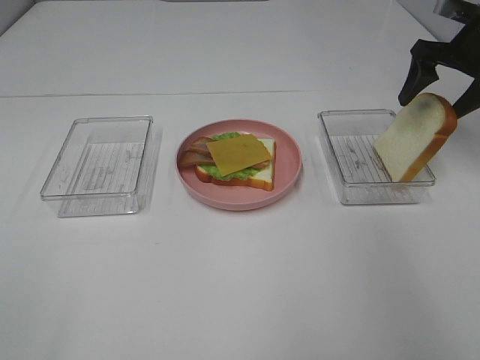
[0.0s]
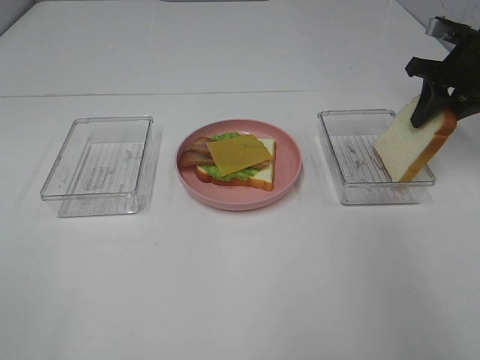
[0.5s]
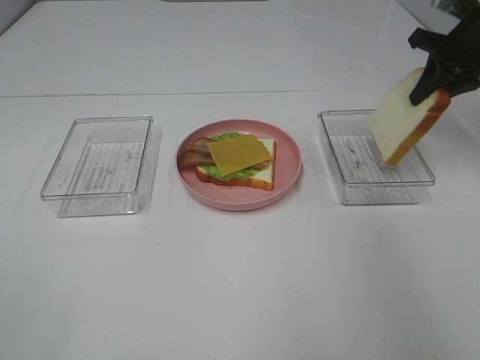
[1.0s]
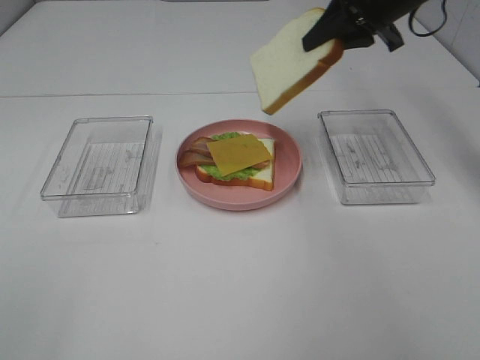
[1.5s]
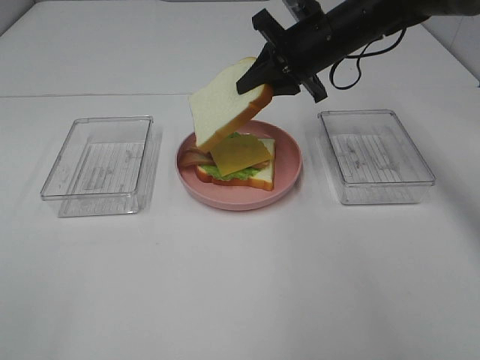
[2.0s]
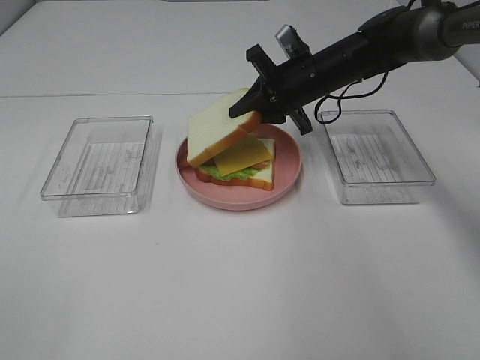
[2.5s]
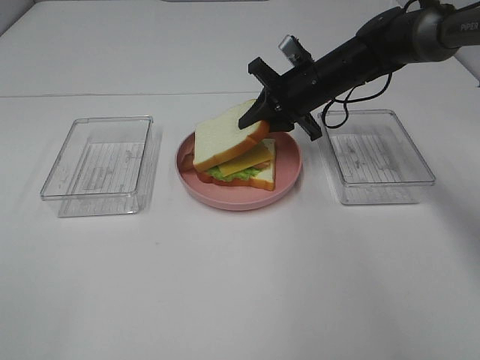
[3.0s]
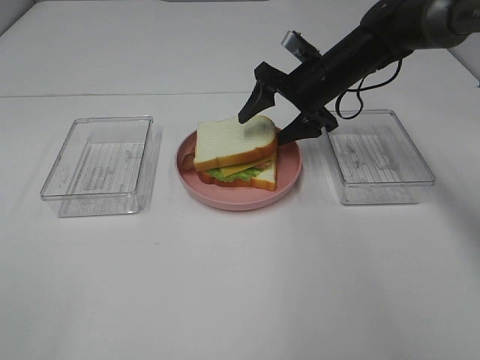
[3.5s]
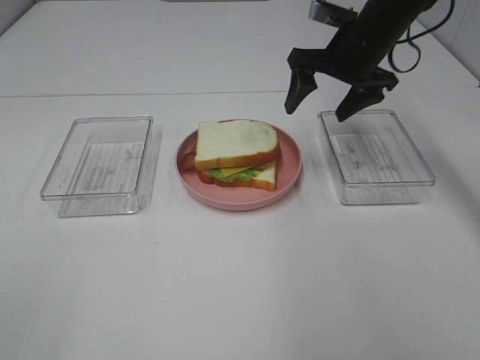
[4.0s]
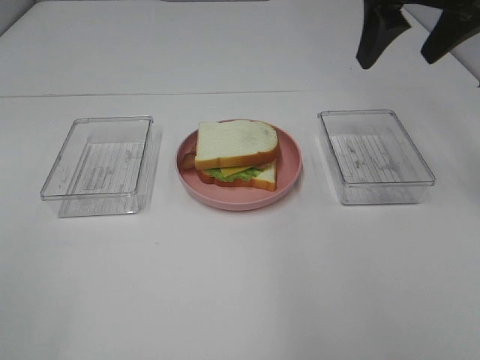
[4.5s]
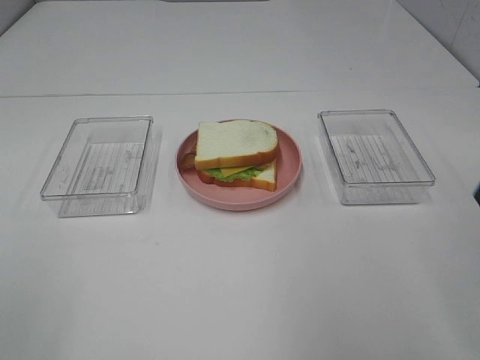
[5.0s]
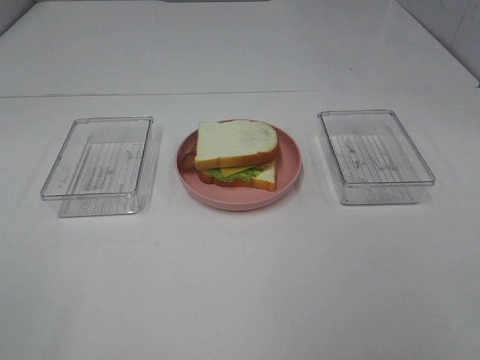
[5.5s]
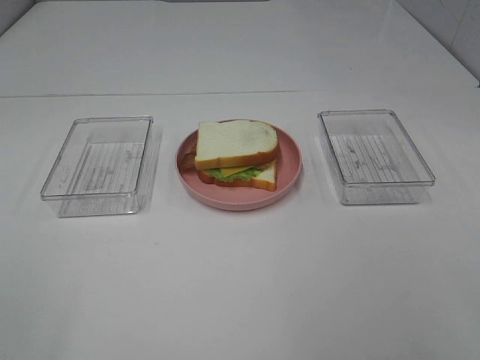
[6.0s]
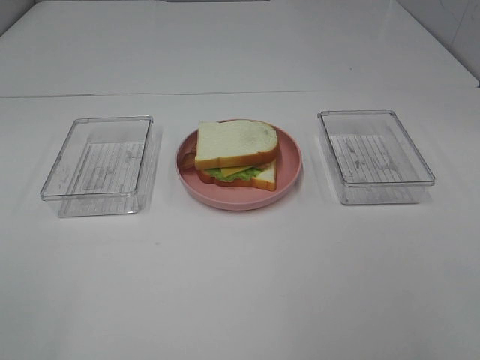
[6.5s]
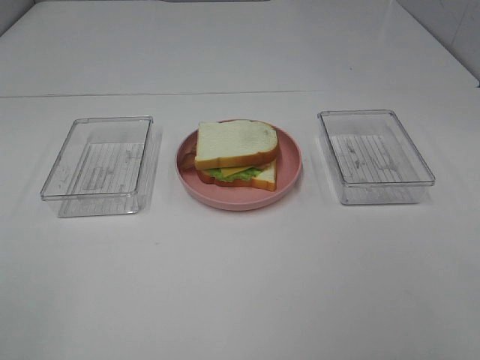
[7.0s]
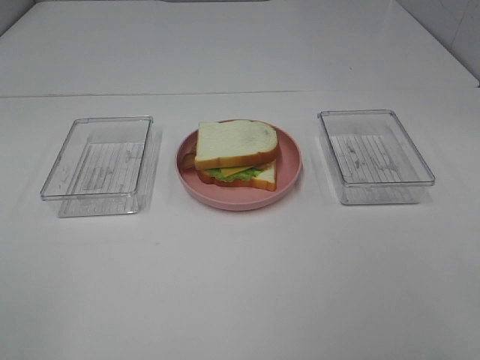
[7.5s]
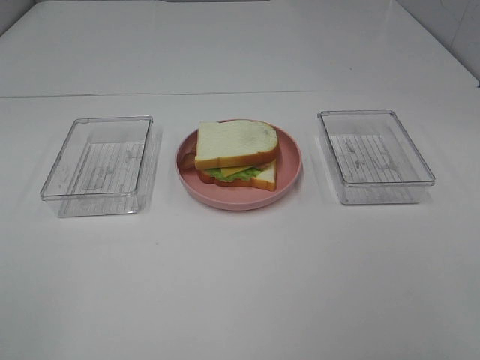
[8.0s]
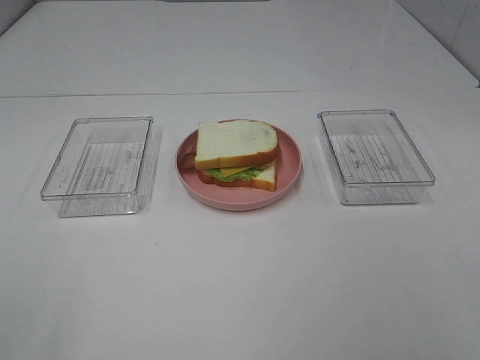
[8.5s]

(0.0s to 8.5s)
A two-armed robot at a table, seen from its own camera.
Task of the whole recording: Make sandwiches.
Step, 1.0s - 3.5s: Right hand:place the bread slice on the cheese slice.
0.0s - 2.0s: The right gripper travels to the left by some 20 cm, and closes its fingers.
2.0s - 4.0s: The right gripper travels downward and back again, approximately 5 cm each way, and opens up.
4.0s - 6.5s: The right gripper heads backward, covering about 40 cm.

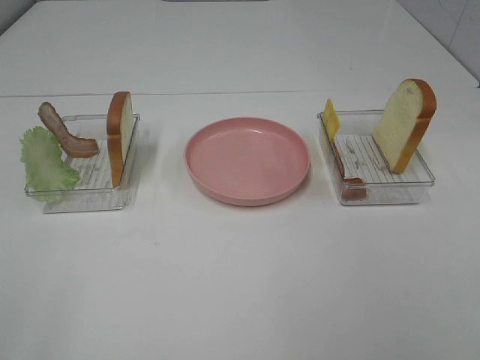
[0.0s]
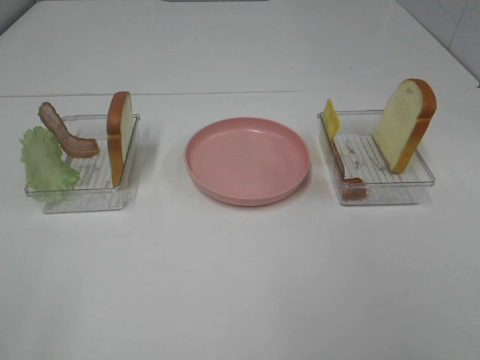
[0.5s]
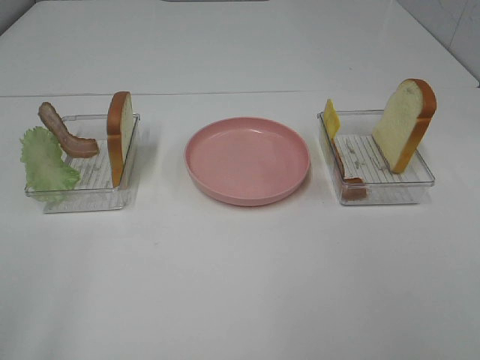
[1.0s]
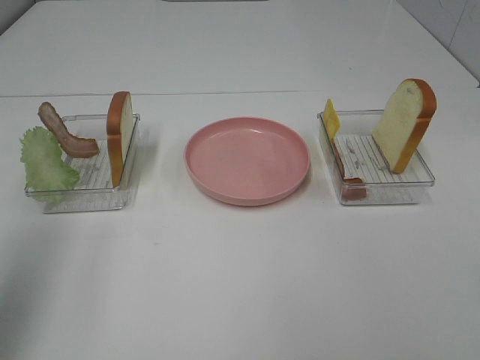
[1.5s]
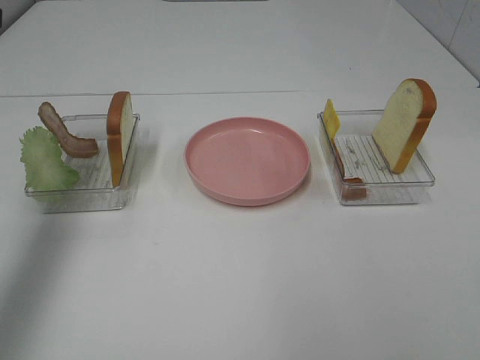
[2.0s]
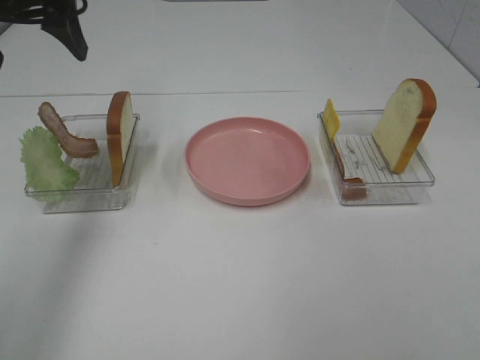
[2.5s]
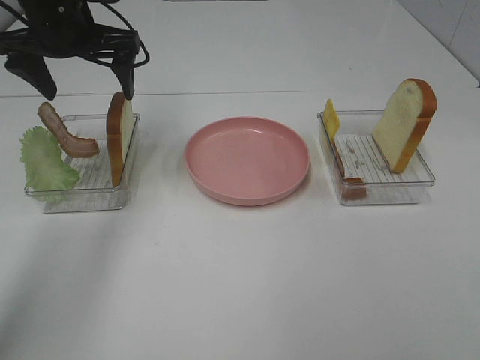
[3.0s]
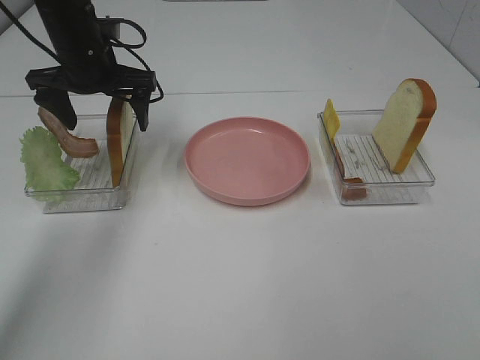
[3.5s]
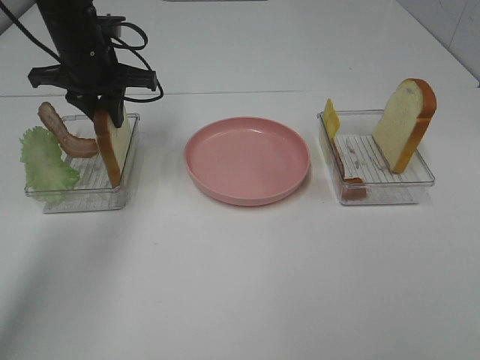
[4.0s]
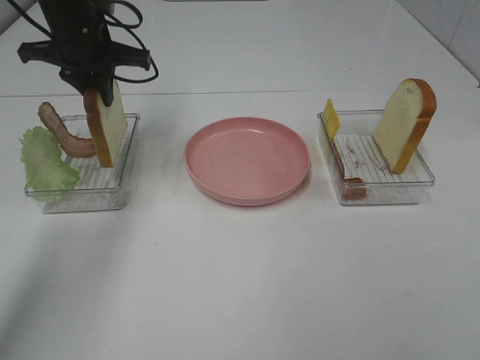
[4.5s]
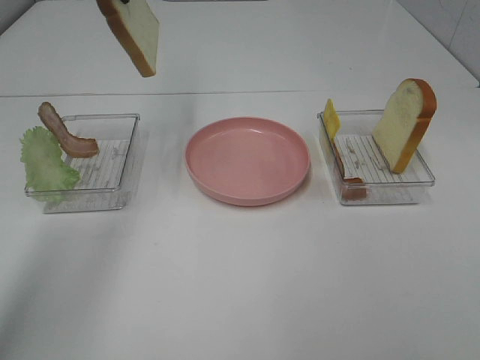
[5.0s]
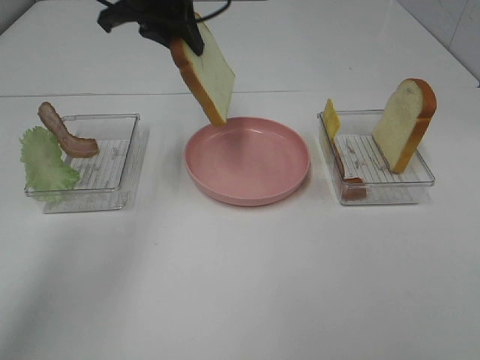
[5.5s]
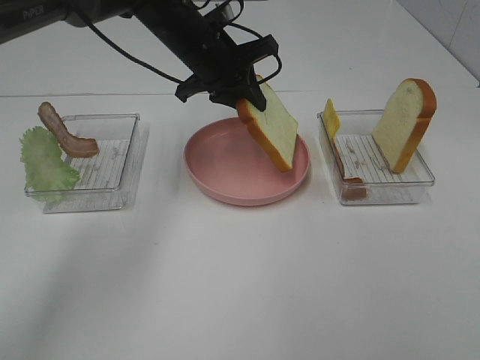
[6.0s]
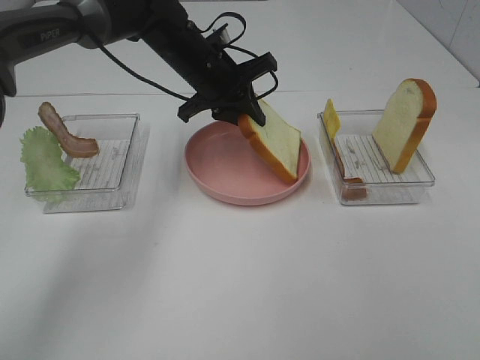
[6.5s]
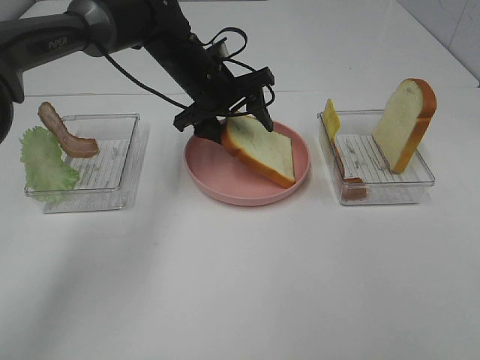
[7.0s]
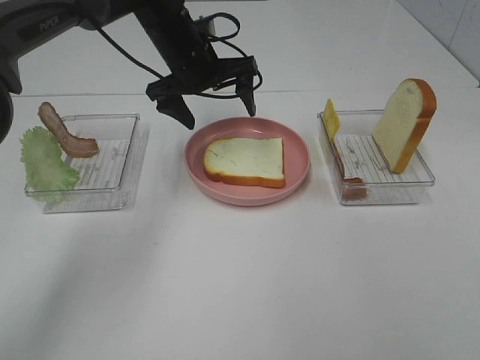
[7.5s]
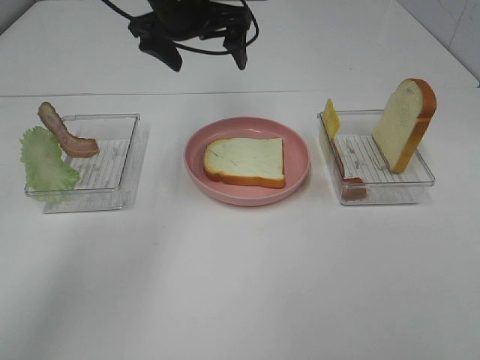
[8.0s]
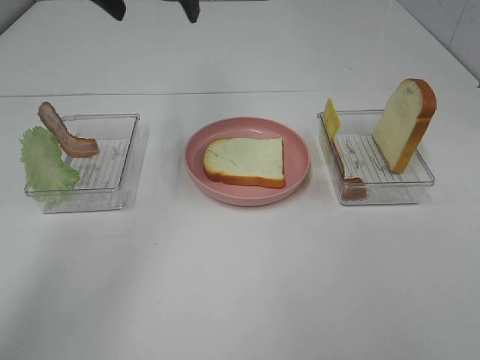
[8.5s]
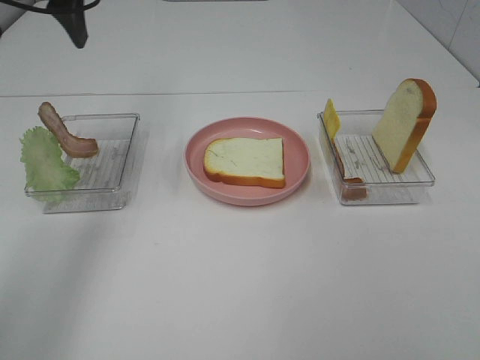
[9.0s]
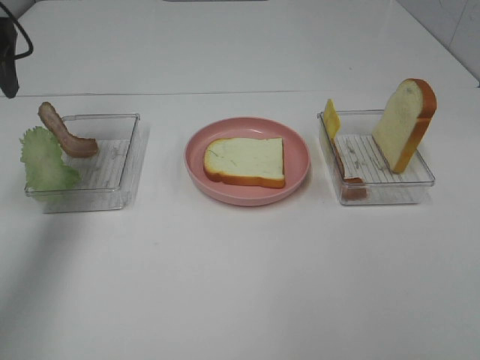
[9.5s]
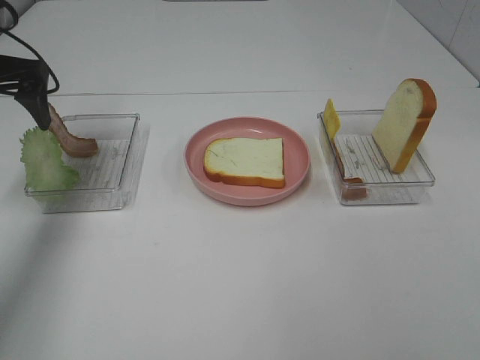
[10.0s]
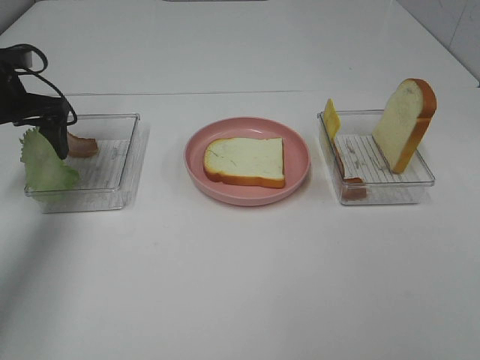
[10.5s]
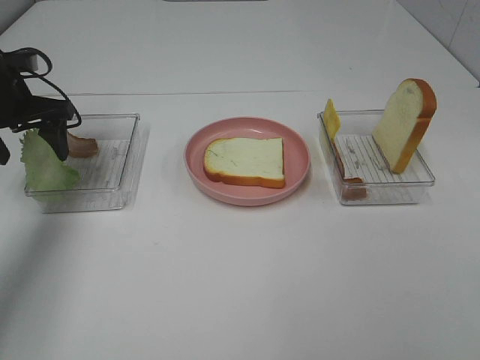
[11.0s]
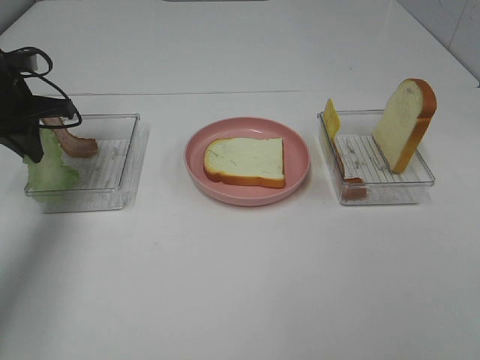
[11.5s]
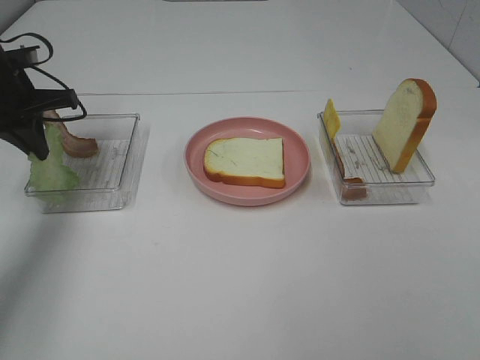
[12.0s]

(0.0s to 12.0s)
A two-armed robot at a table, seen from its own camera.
Task of the whole recording: Make sandwiches.
Step, 0.0s - 4.0s: Left hand:grab the bread slice.
Step, 4.5s - 7.5s: Left hand:place the bread slice on the plate.
Step, 8.0s - 11.5s: Left hand:grab the lettuce slice.
0.0s - 2.0s: The left gripper heads forward, covering approximately 30 cm.
2.0s - 4.0s: The left gripper moves forward, downward and to the right, some 25 cm, and closes its fingers.
4.0s - 6.0s: The left gripper travels to the right by about 15 cm, and travels upward and back again, roughly 15 cm each way.
6.0s - 8.0s: The left gripper shifts some 10 cm upward, and opens up.
8.0s - 10.0s: The left gripper shifts some 20 cm to the left.
10.0s - 12.0s: The left gripper travels downward by roughly 5 cm, and closes its fingers.

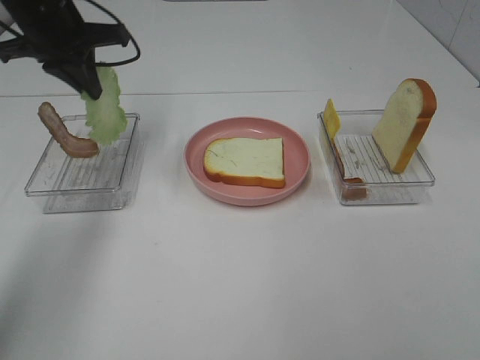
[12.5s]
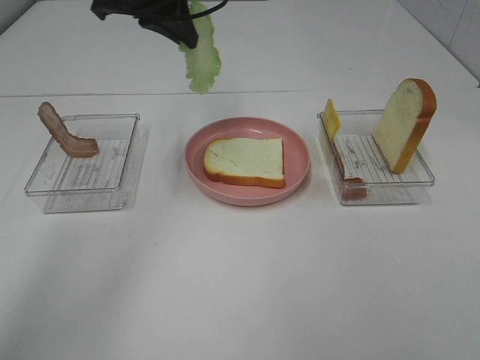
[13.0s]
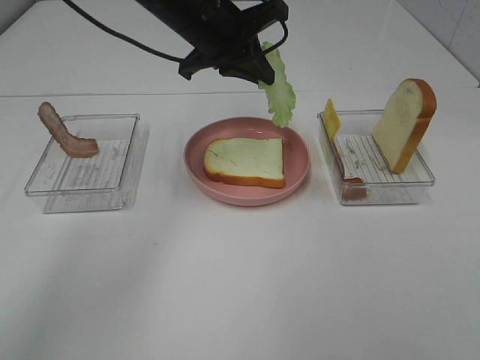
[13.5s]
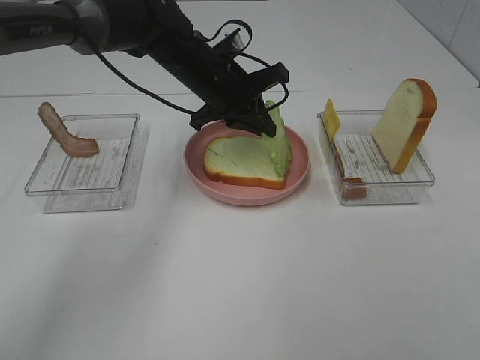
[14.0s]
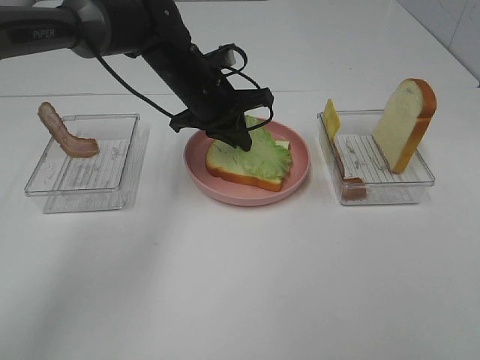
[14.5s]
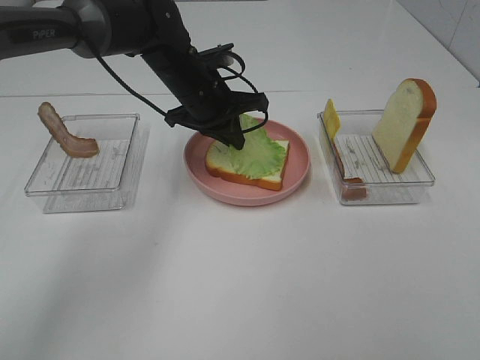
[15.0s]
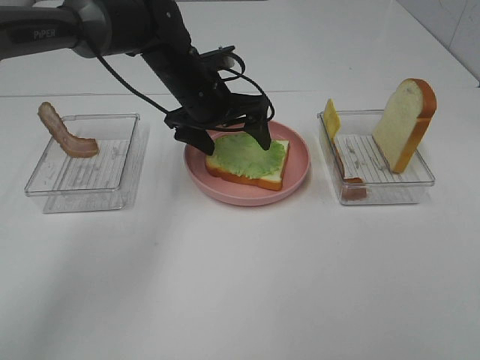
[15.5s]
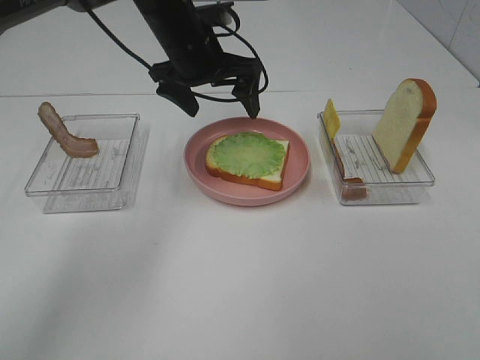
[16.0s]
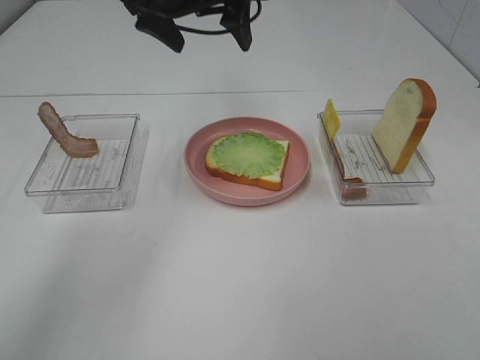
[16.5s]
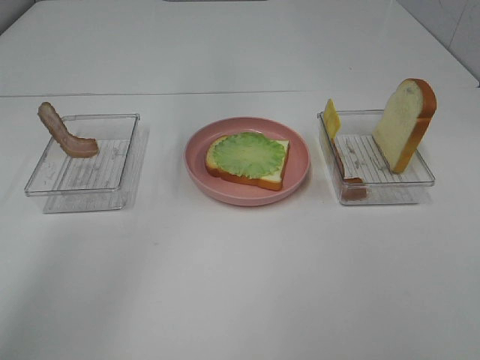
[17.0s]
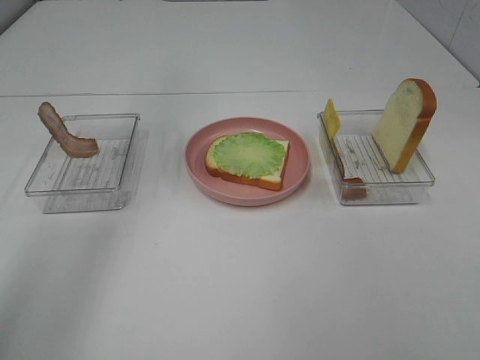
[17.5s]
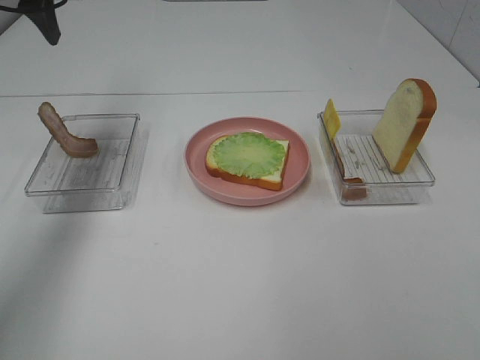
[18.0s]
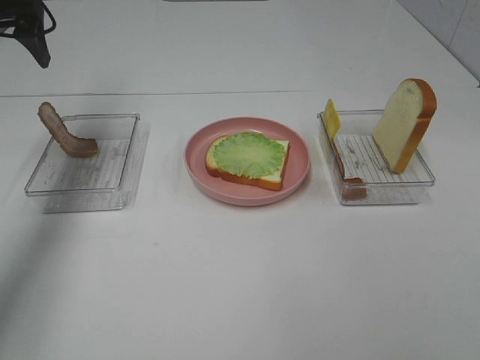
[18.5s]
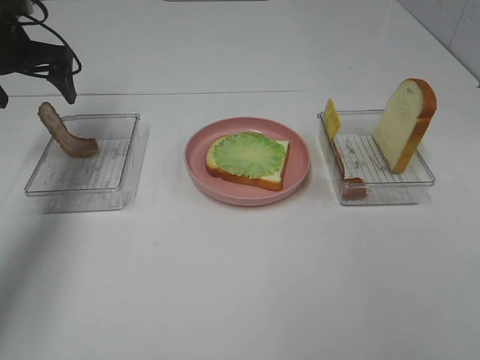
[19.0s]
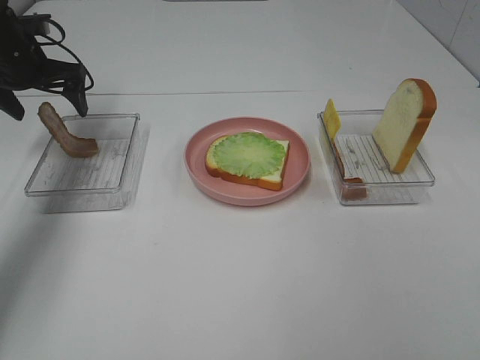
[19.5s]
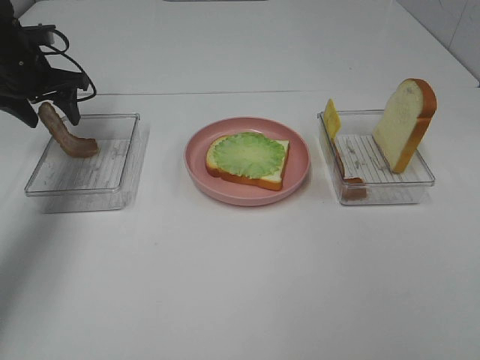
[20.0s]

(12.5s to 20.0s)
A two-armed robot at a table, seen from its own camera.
Task of the whole recording: Make sandwiches.
Step, 12.5s - 15.5s: Left hand:place the lettuce slice on the bread slice.
12.5s - 14.5s: The left gripper moves to the right and downward, roughly 20 cm.
14.5s - 16.5s: The left gripper moves upward, roughly 15 cm, and opens up.
16.5s - 18.0s: The left gripper shifts approximately 20 cm to the left.
18.0s - 20.0s: The left gripper moves downward and forward, roughly 20 cm, and closes.
